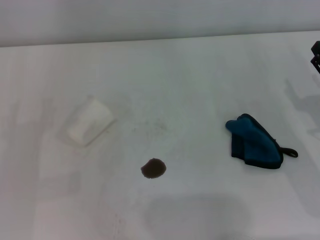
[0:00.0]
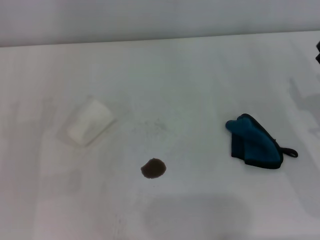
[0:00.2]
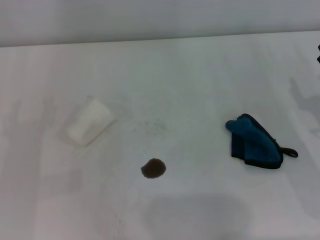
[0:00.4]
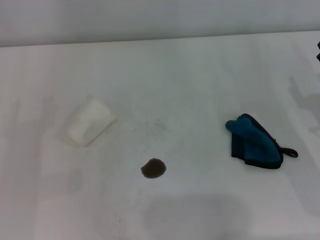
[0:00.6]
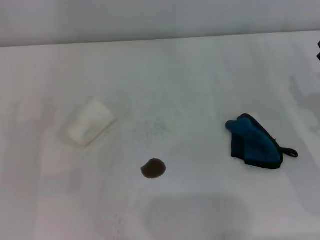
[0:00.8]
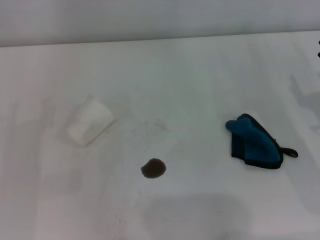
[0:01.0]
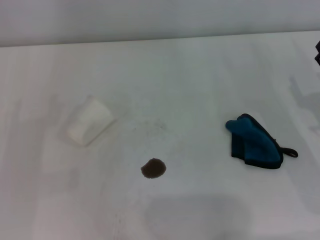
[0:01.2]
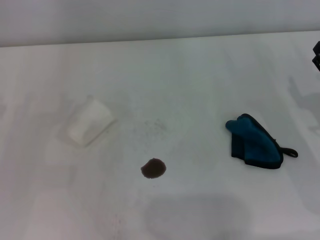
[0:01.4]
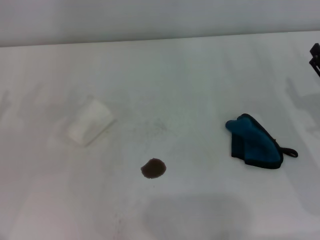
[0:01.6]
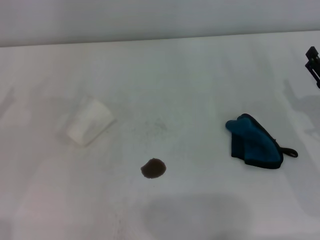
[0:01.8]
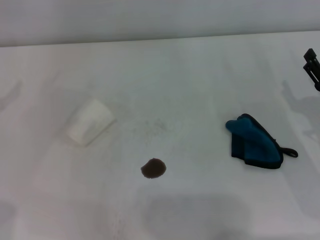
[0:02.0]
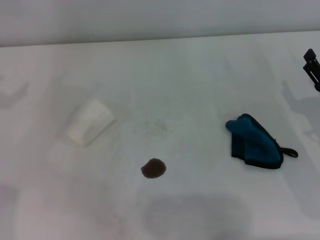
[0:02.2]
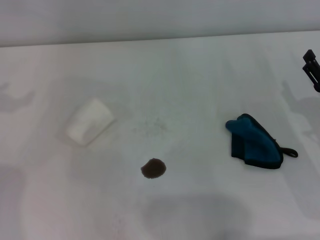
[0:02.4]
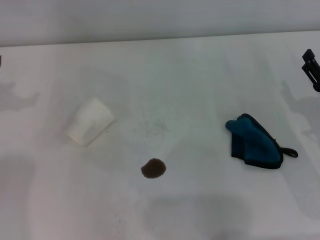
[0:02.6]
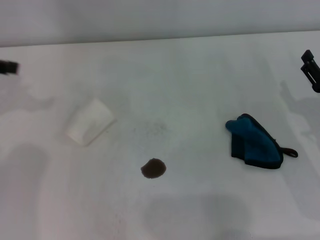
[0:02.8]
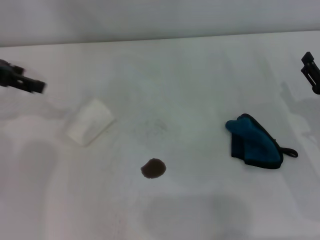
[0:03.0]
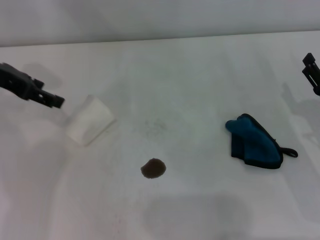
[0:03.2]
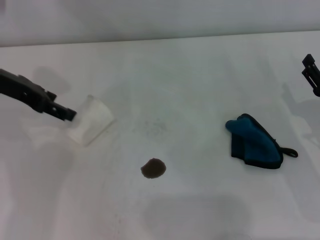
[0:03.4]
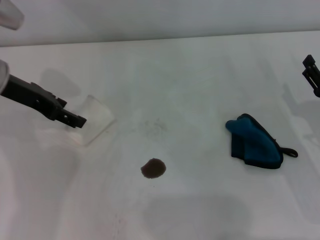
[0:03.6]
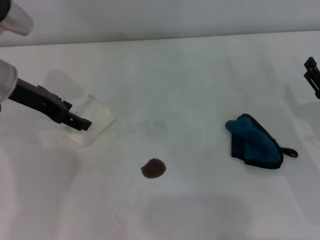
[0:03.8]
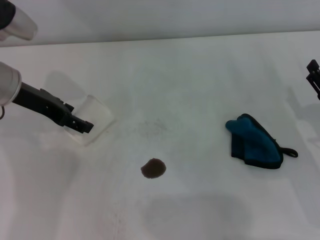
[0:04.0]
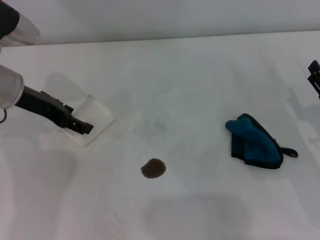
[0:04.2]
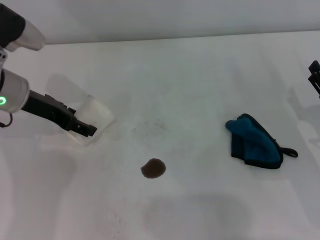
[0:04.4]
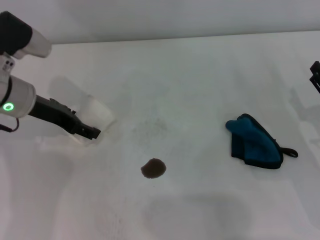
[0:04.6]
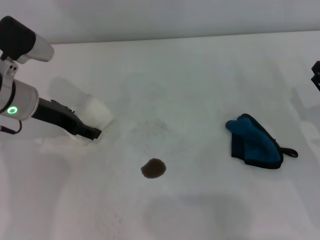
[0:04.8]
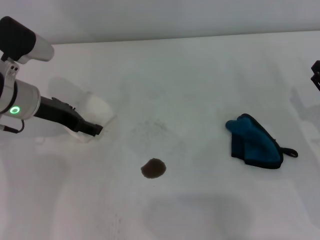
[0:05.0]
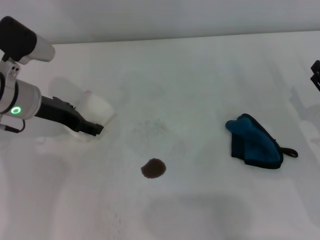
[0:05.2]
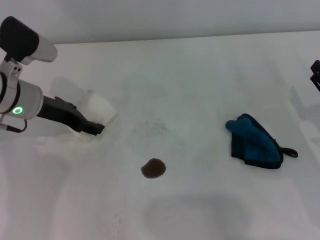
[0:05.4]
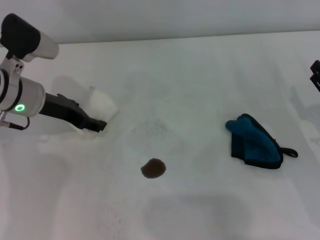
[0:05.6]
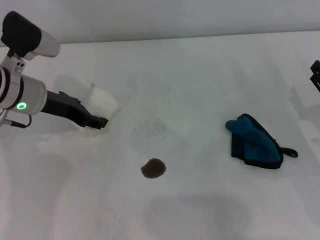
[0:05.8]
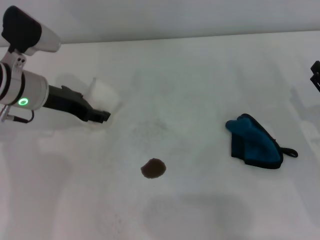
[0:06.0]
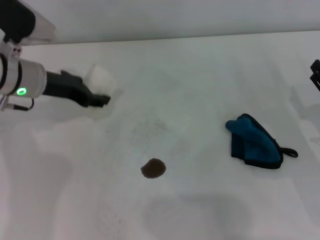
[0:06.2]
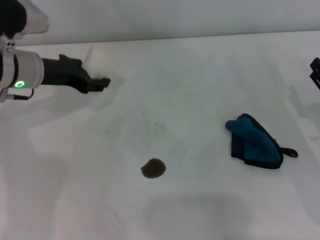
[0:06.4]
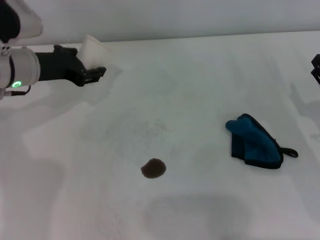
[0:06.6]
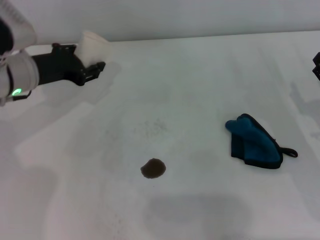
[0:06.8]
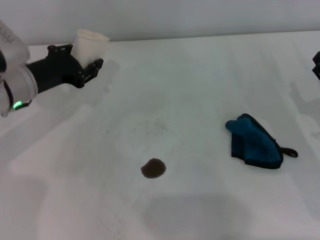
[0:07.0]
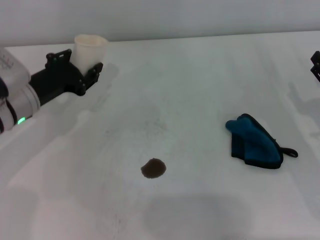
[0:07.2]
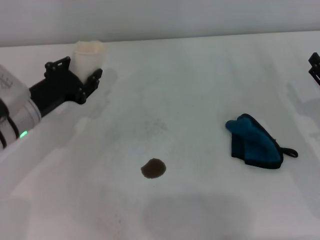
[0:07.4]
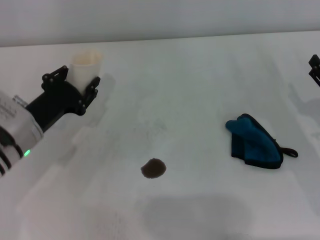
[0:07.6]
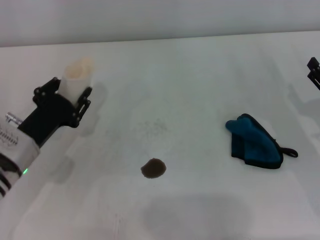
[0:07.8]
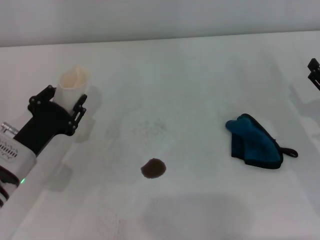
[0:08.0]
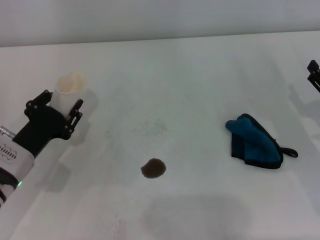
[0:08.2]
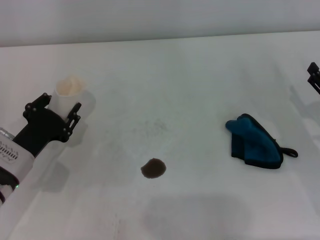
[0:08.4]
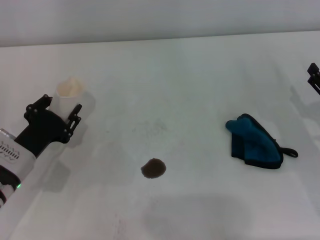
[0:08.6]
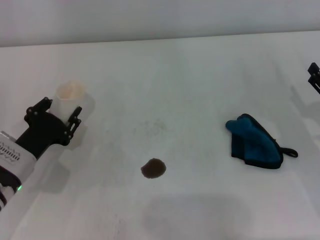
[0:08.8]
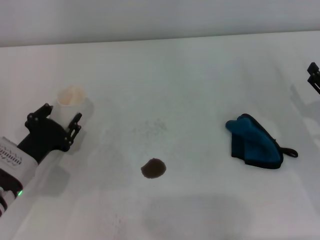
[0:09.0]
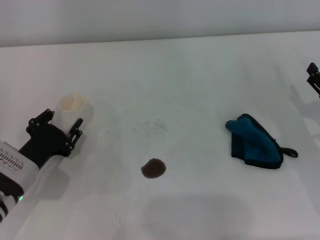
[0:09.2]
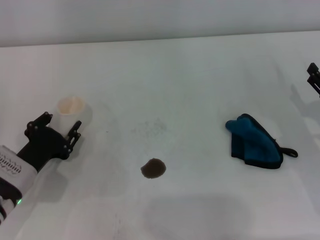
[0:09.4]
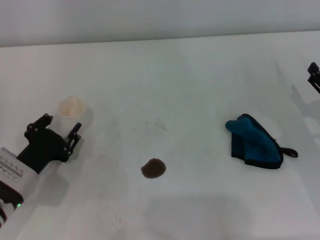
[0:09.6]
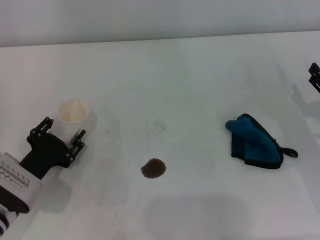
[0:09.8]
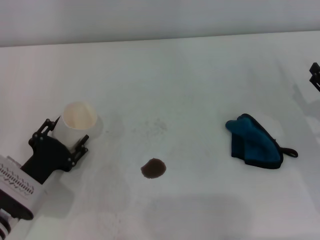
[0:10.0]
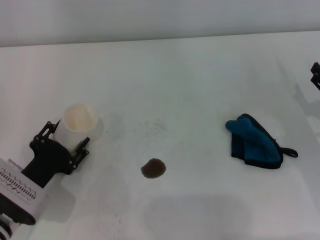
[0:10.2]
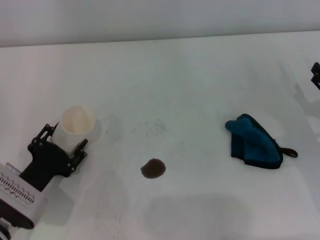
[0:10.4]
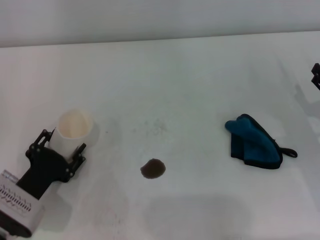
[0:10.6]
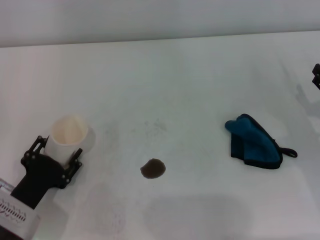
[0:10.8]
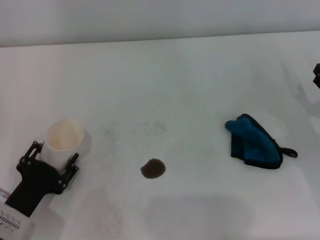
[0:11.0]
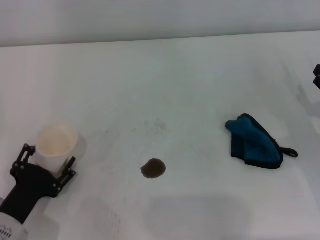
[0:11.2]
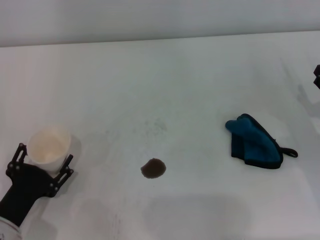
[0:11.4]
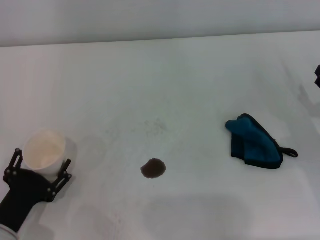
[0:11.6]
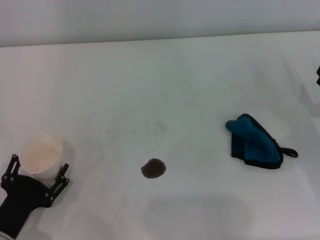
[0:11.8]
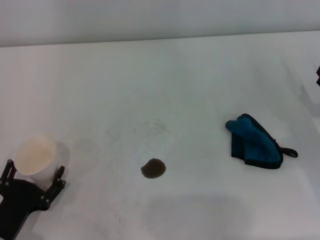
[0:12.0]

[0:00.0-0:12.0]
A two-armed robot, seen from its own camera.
Step, 0:00.0 to 0:05.6: Grasp the paper cup with the left gripper.
Step, 0:05.8 to 0:12.0: Stand the paper cup upright with the left gripper.
0:01.6 to 0:03.0: The left gripper shifts about 20 cm upward, forward and to the right.
0:03.0 to 0:04.4: The left gripper is displaced downward and to the right by roughly 10 cm.
0:04.4 to 0:06.0: The left gripper closes up.
0:06.0 to 0:07.6: The left gripper shifts approximately 10 cm backward and downward, and closes.
0:07.6 to 0:09.0: The left gripper changes place by approximately 5 cm.
0:09.0 to 0:10.4: The left gripper opens.
0:10.4 to 0:12.0: The left gripper goes some 5 cm backward, and opens.

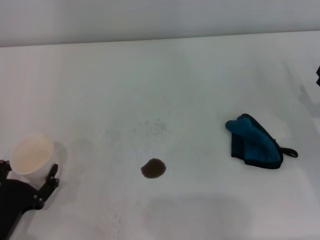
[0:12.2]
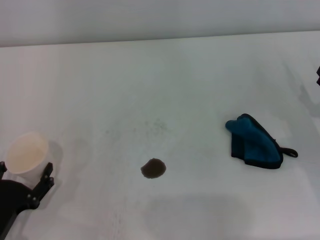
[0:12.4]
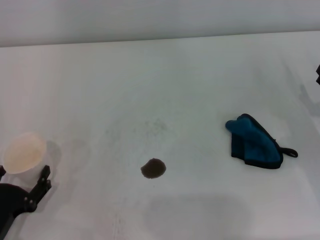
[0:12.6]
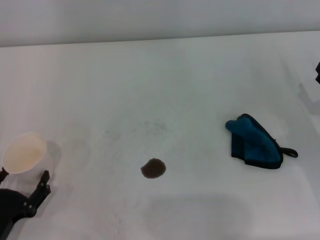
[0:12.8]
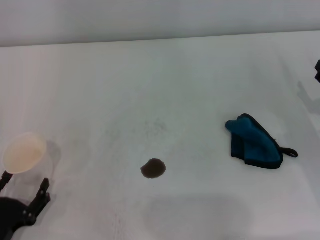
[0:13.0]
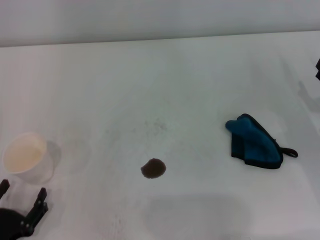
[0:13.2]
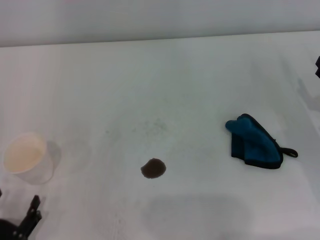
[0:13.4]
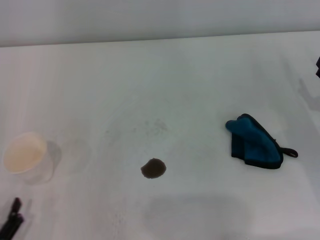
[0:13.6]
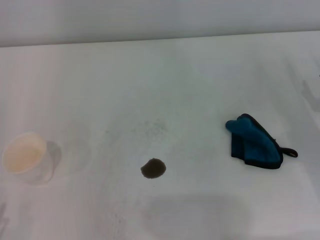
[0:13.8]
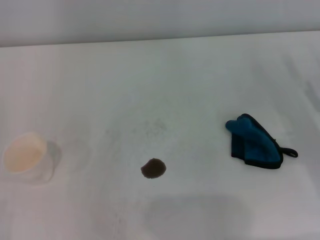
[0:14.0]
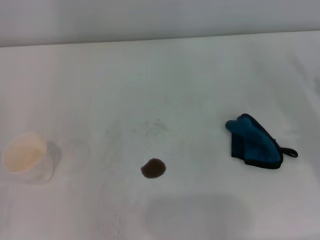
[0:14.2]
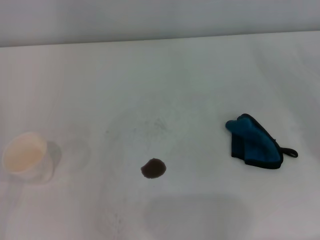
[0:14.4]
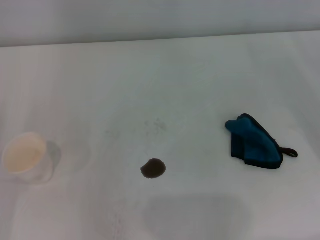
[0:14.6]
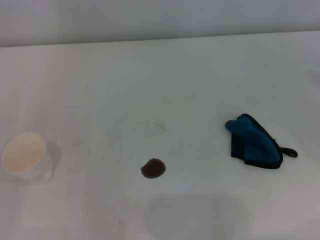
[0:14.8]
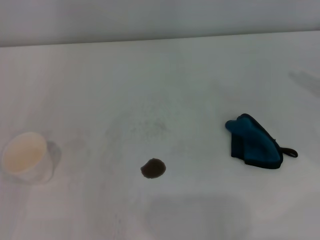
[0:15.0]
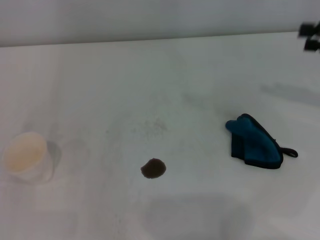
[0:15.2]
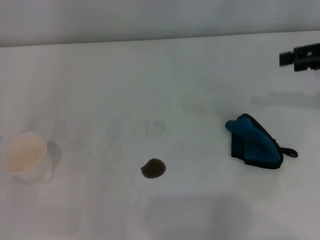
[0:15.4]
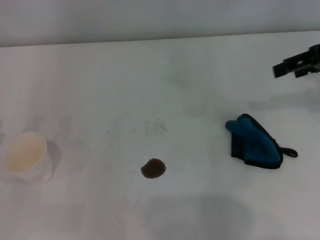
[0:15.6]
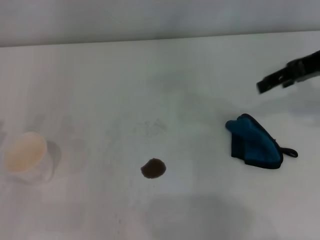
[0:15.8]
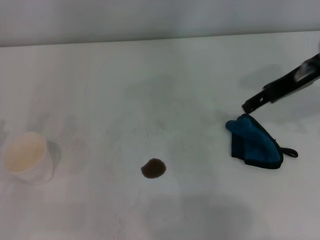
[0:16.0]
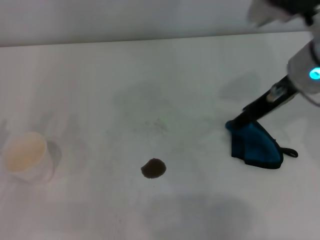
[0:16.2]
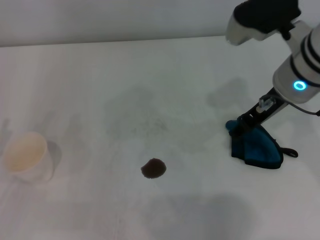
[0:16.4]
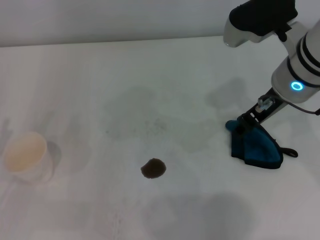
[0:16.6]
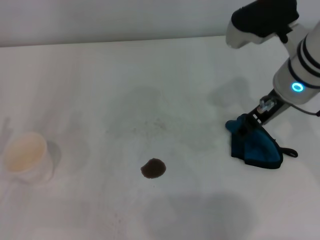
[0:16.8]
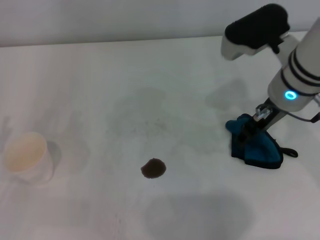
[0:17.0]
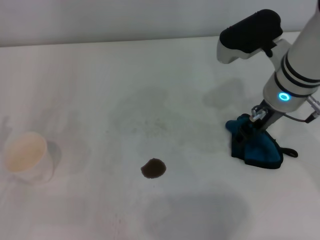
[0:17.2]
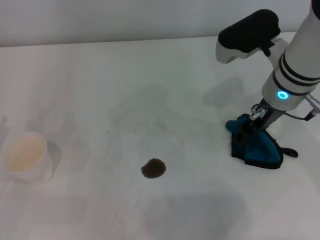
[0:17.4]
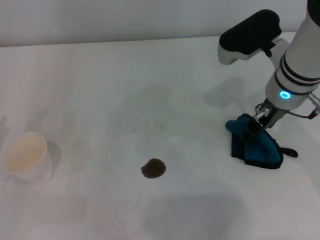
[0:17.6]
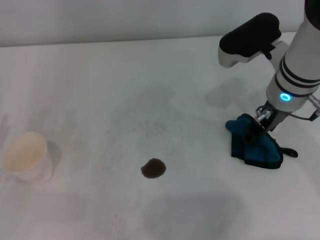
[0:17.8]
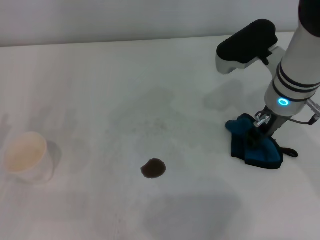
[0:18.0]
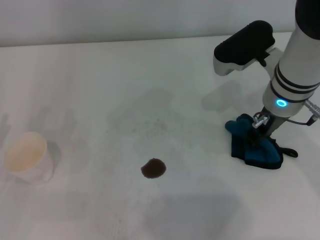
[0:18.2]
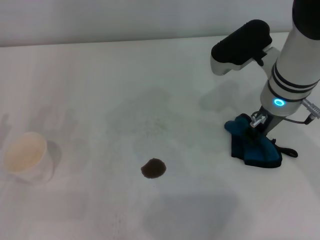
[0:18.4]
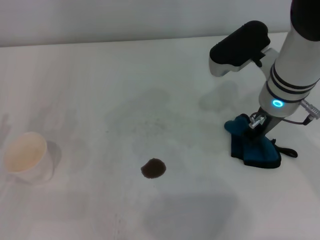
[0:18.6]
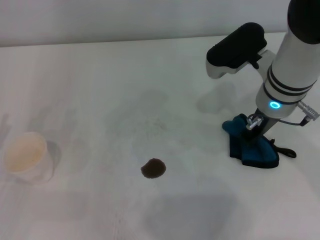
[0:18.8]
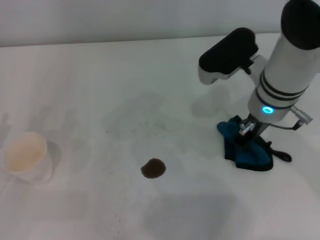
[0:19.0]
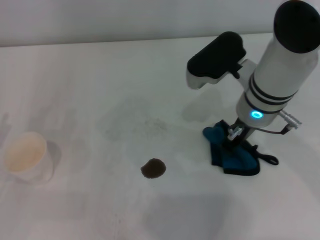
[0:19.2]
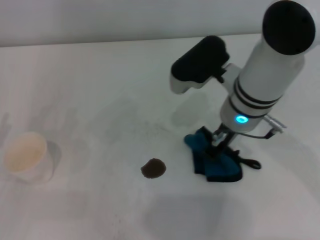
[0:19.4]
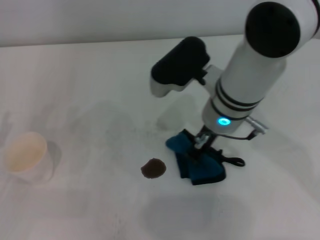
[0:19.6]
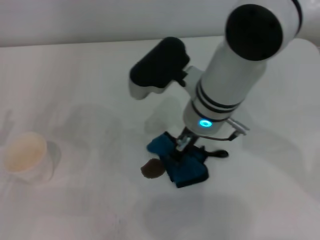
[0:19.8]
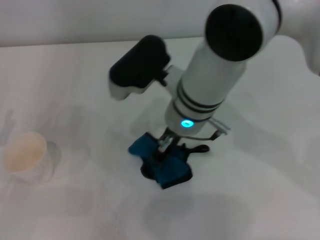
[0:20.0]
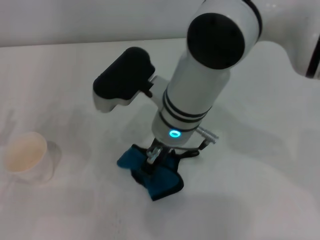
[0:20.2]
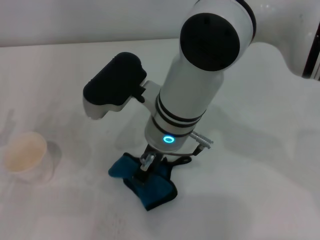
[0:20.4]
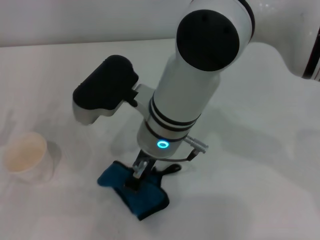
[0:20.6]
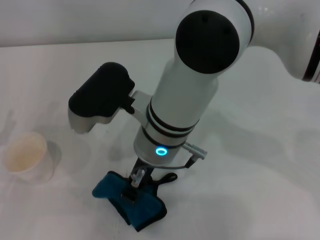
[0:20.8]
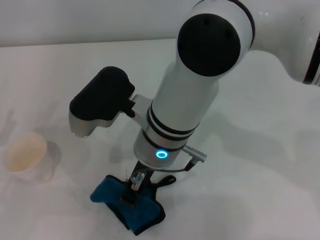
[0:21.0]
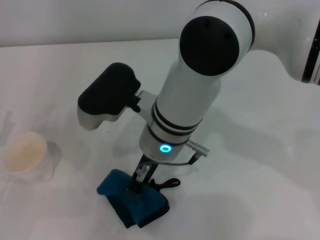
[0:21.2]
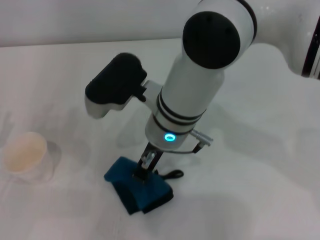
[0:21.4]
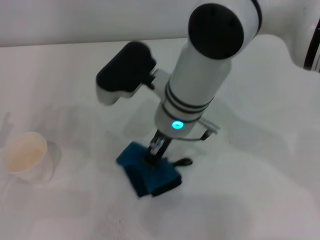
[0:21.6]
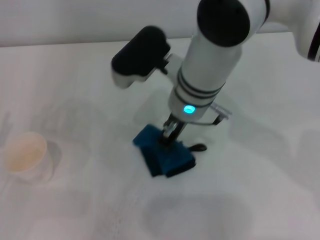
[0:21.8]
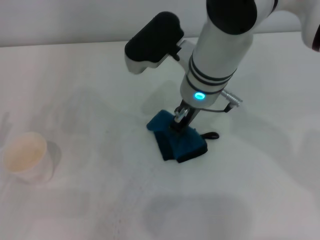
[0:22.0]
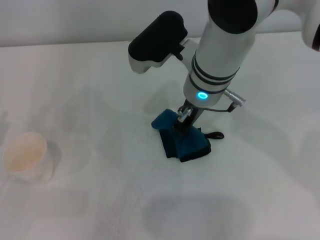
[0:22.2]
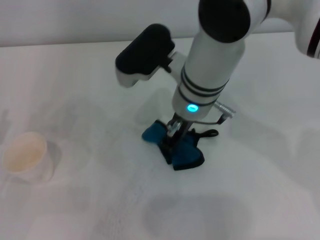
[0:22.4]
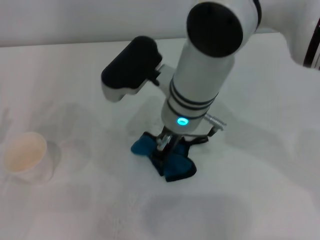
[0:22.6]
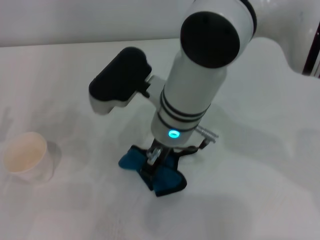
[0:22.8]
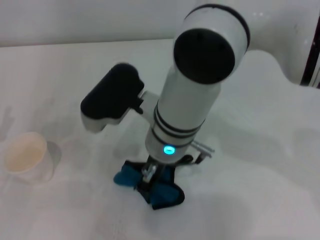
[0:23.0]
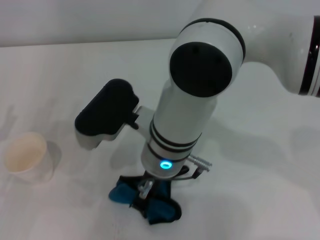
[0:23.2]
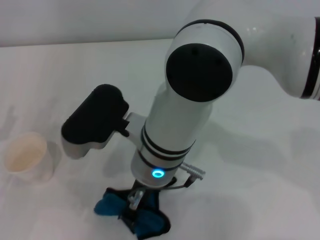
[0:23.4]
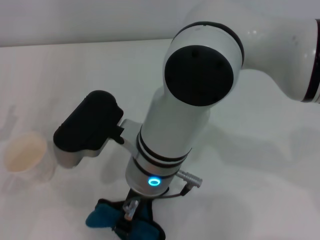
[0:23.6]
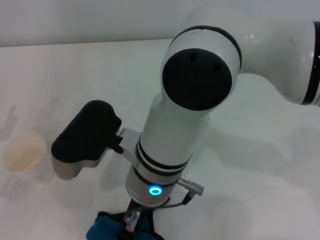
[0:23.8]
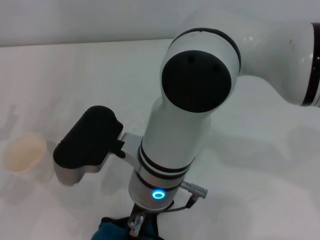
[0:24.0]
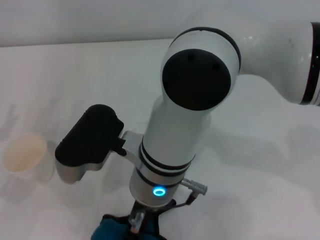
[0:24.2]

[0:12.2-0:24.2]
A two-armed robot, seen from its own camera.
Step, 0:12.2 to 0:18.6: Grasp the rag with the right gripper.
0:12.2 to 0:13.8: The left gripper travels backward by roughly 10 cm.
0:13.8 to 0:15.2: The right gripper travels upward by roughly 15 cm.
0:15.2 to 0:16.6: The right gripper travels to the left by approximately 20 cm.
0:16.6 to 0:18.2: The right gripper goes some 5 cm downward.
0:18.2 to 0:19.8: The right gripper shifts about 10 cm to the left, and closes.
0:19.8 to 0:21.2: The right gripper heads to the left, covering approximately 5 cm.
0:22.6 to 0:24.2: The right gripper shifts some 10 cm backward.
